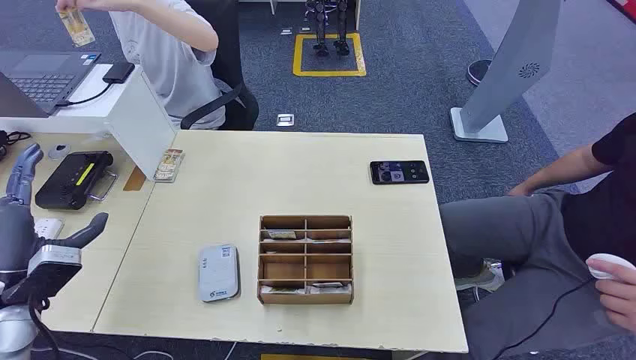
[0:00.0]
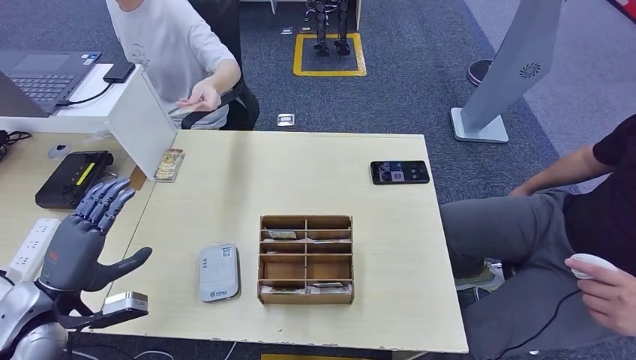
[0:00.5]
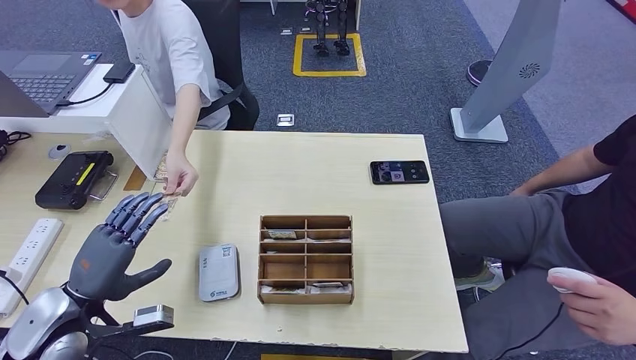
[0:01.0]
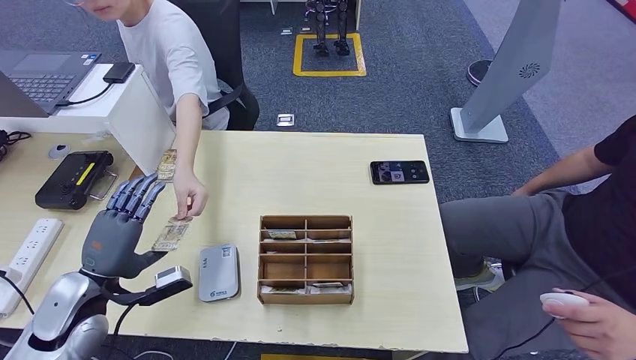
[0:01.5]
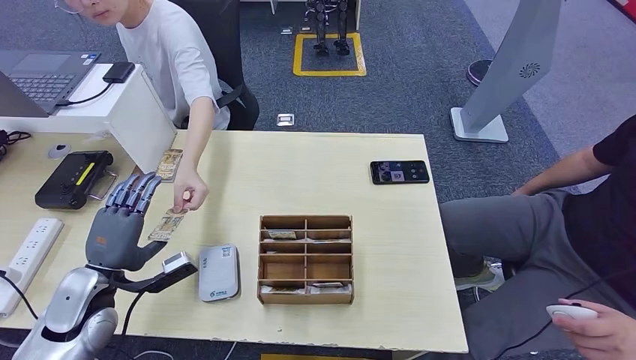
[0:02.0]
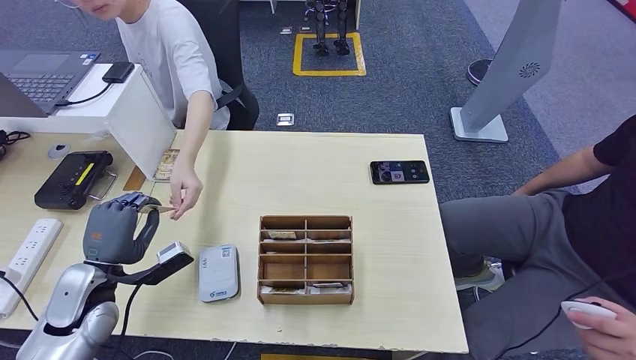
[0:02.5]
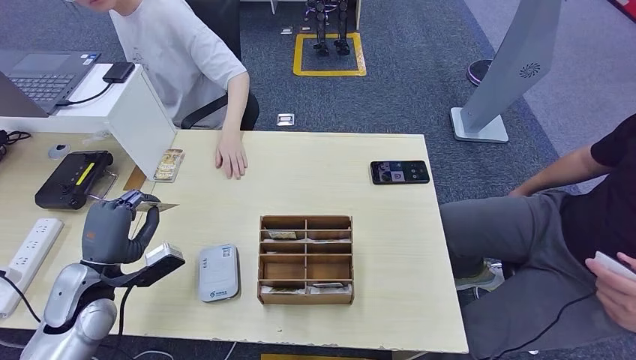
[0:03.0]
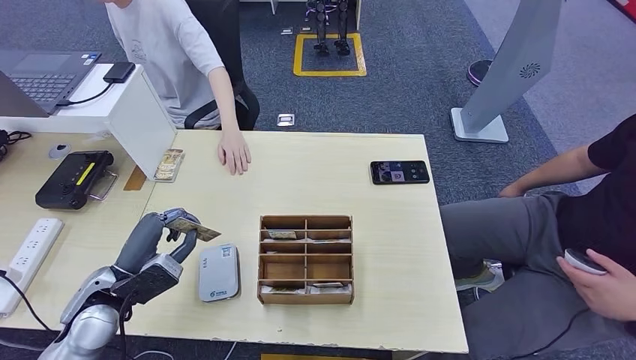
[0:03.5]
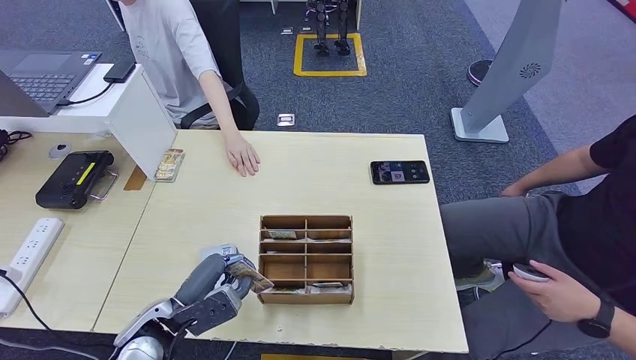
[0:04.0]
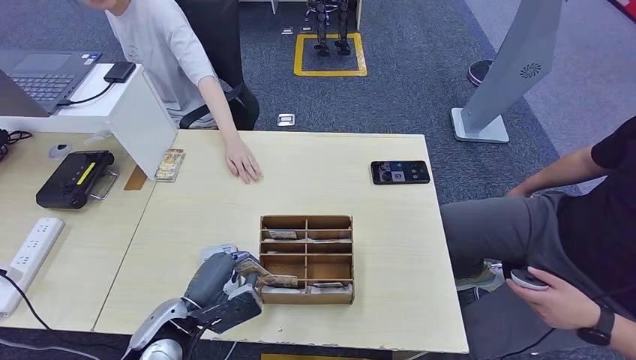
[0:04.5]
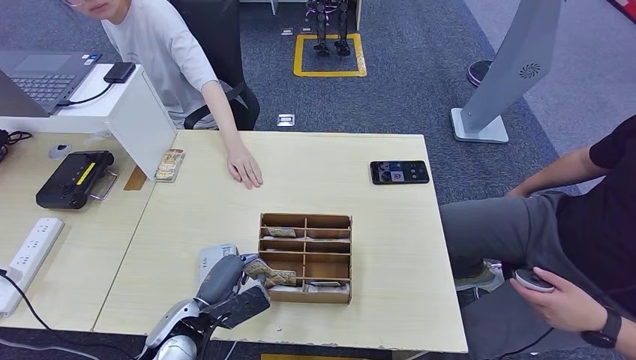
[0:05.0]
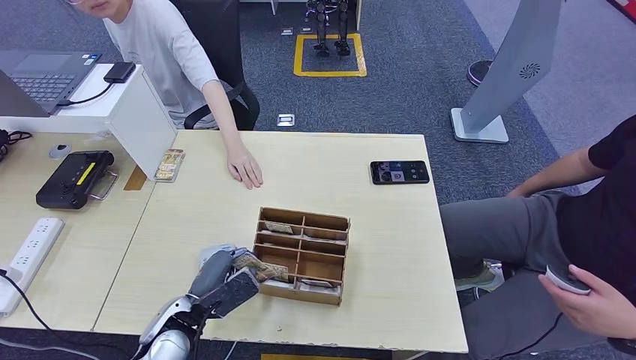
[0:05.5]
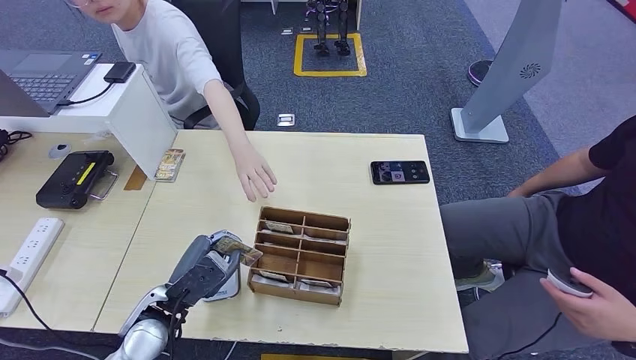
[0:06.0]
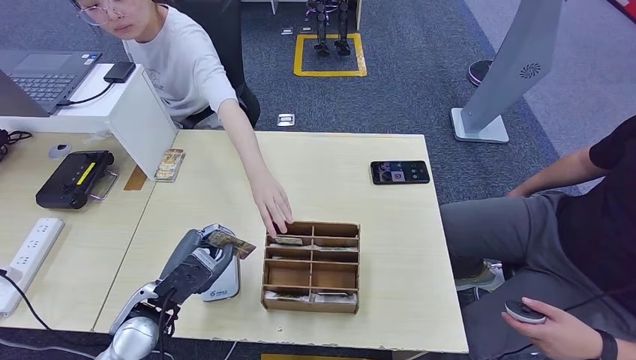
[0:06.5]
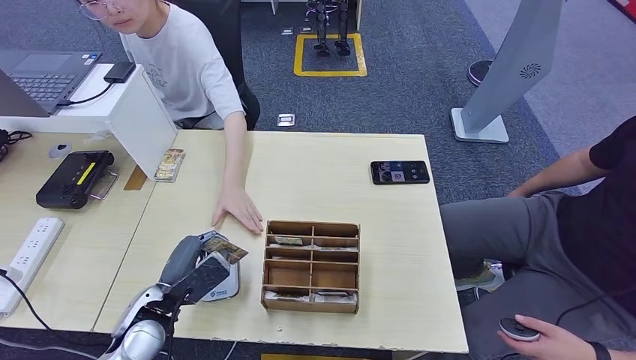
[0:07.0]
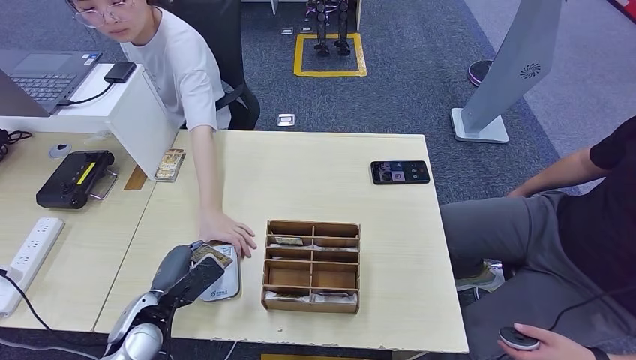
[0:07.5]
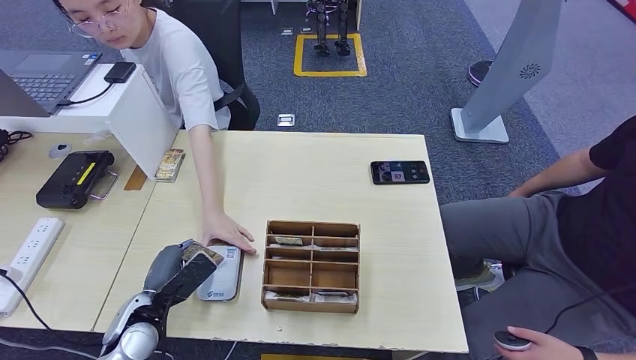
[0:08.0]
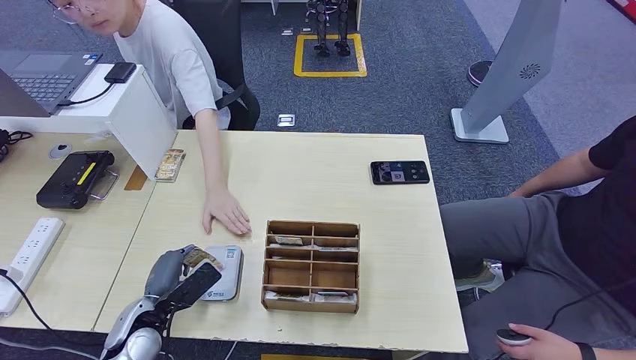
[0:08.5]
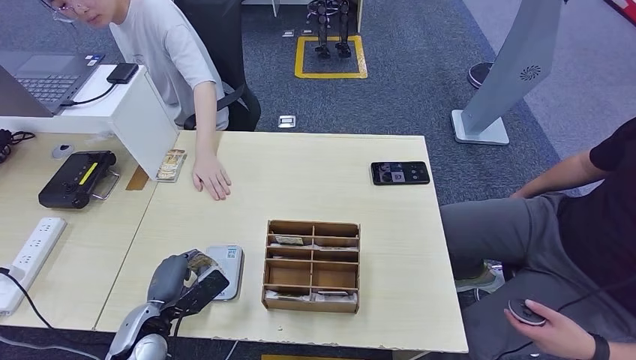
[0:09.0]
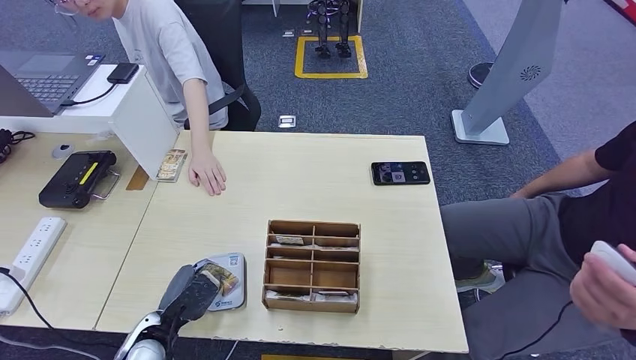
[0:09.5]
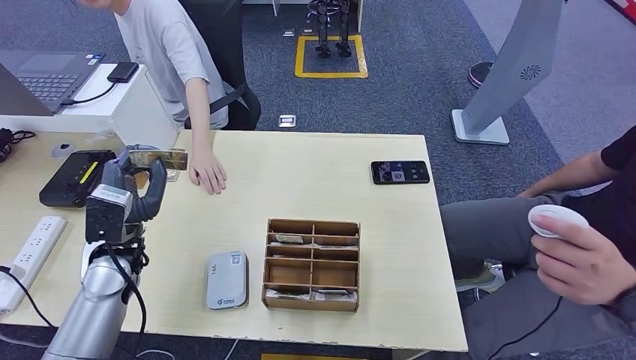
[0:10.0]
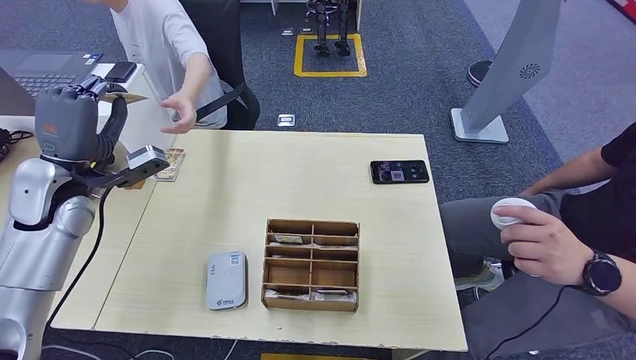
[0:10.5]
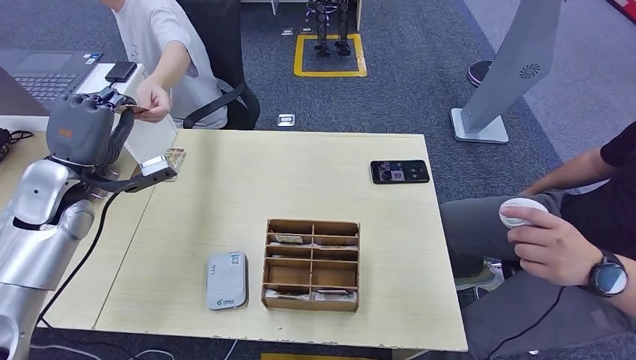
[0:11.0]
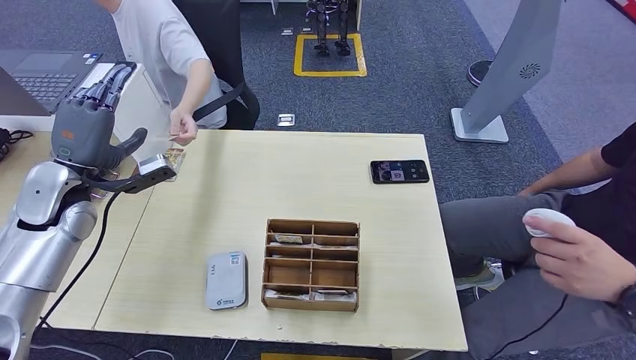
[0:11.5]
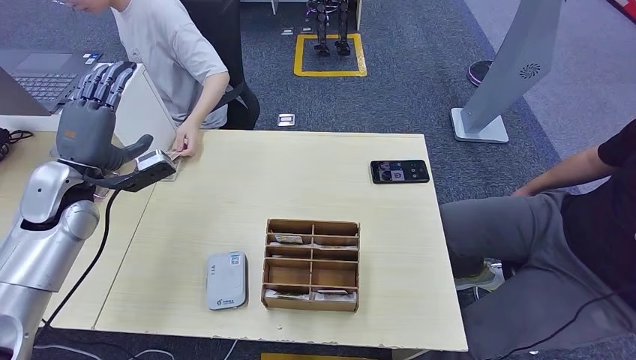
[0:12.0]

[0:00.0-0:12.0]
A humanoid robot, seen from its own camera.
Step, 0:00.0 to 0:03.0: Take the ID card from the person's hand.
Step, 0:03.5 to 0:09.0: Place the ID card on the card reader.
Step, 0:09.5 to 0:11.0: Hand the ID card to the person.
0:02.0 to 0:04.0: The left hand shifts approximately 10 cm to the right.
0:04.0 to 0:06.0: The hands stay close to where they were, moving slightly.
0:06.0 to 0:08.0: The left hand heads to the left, covering about 5 cm.

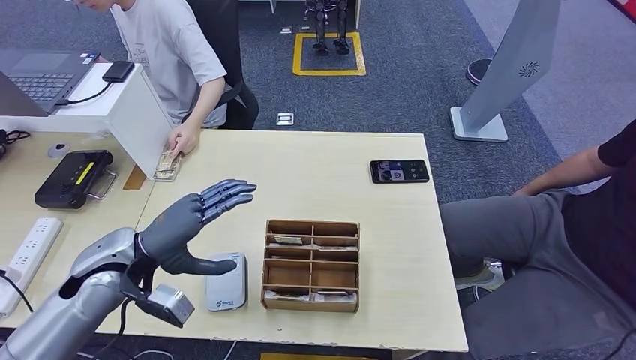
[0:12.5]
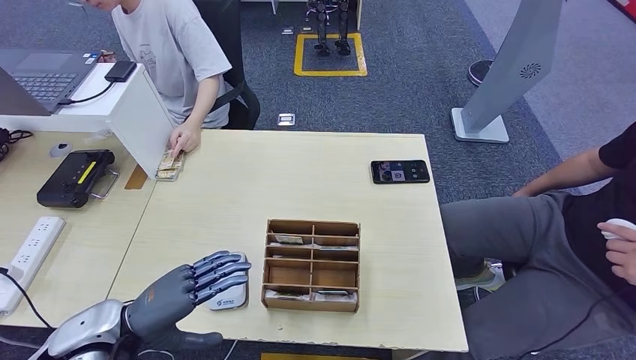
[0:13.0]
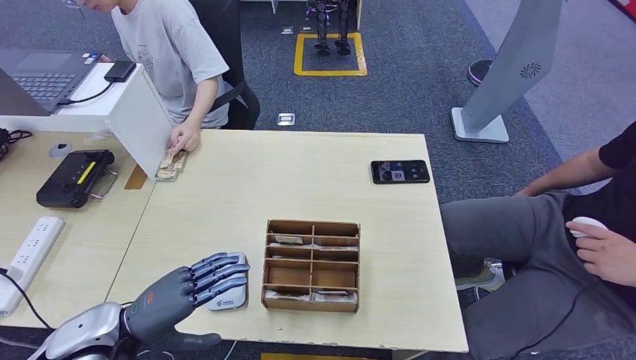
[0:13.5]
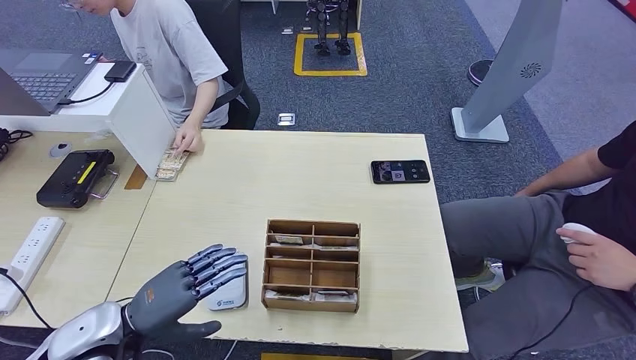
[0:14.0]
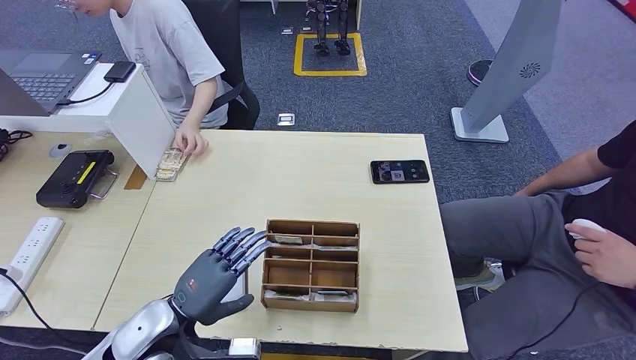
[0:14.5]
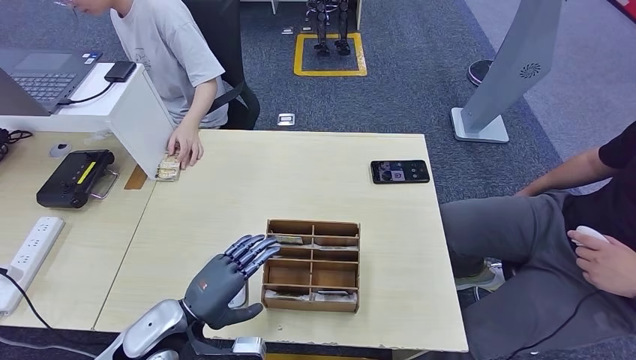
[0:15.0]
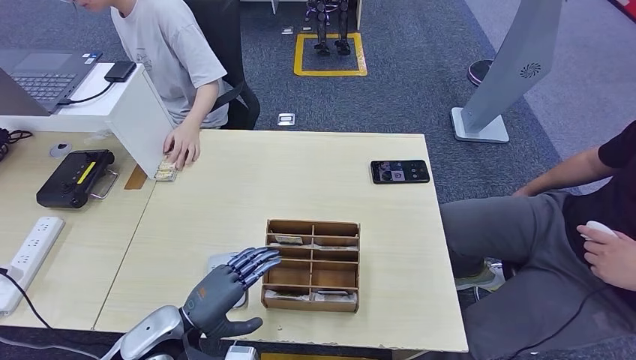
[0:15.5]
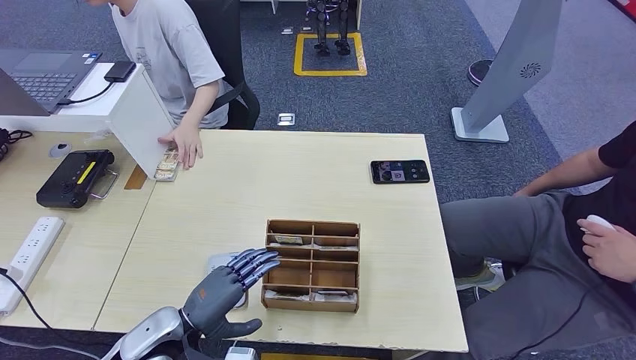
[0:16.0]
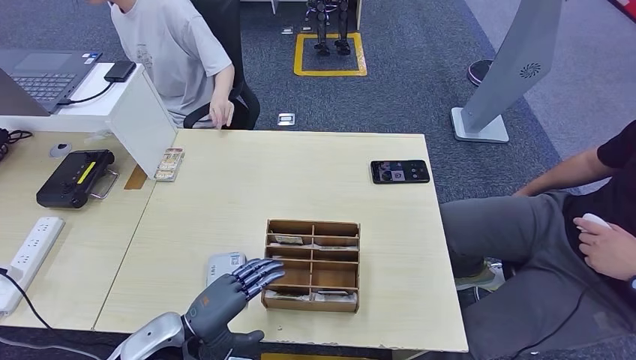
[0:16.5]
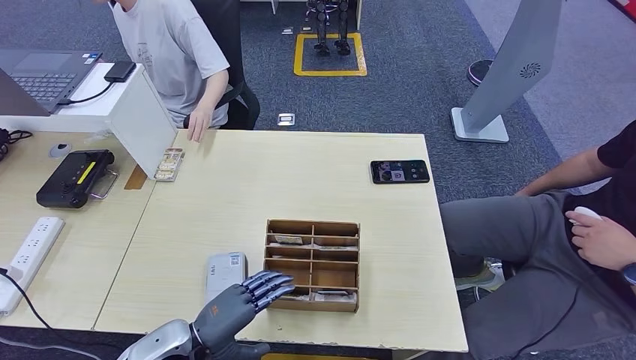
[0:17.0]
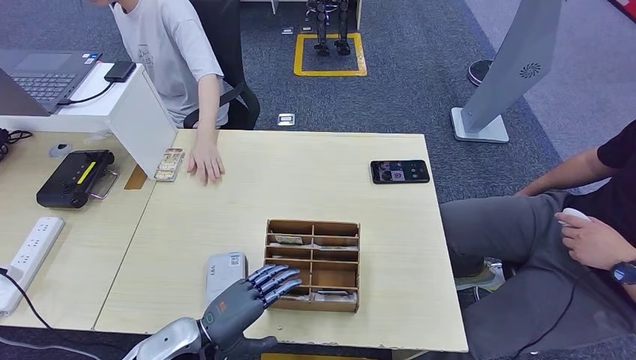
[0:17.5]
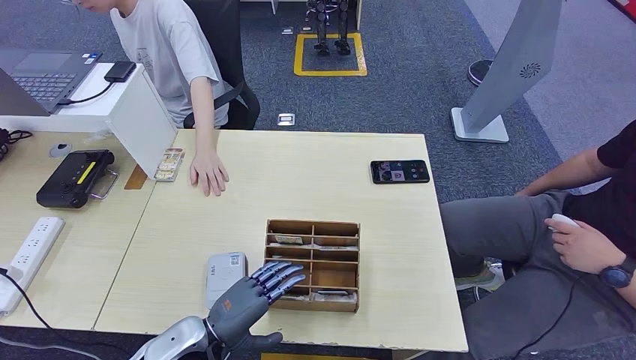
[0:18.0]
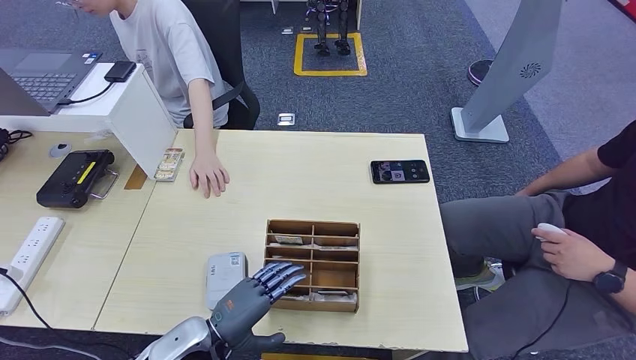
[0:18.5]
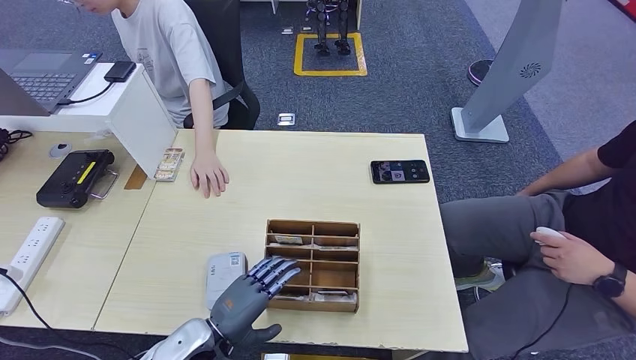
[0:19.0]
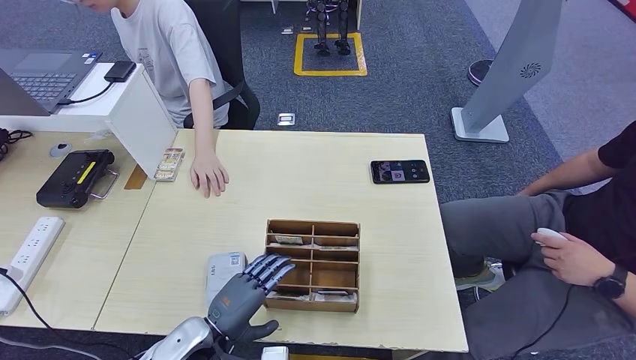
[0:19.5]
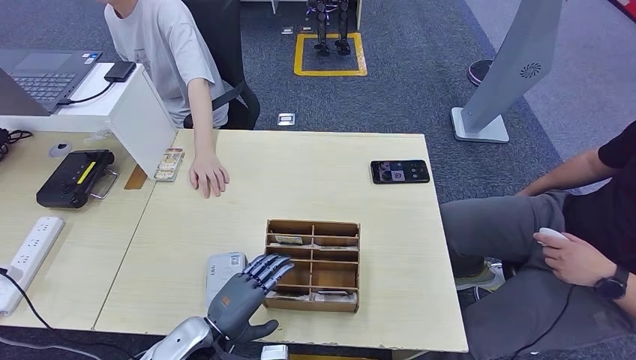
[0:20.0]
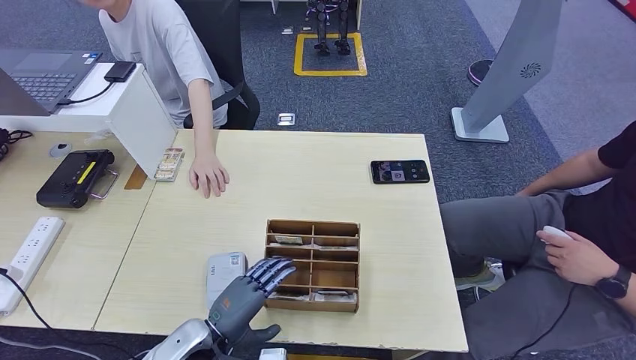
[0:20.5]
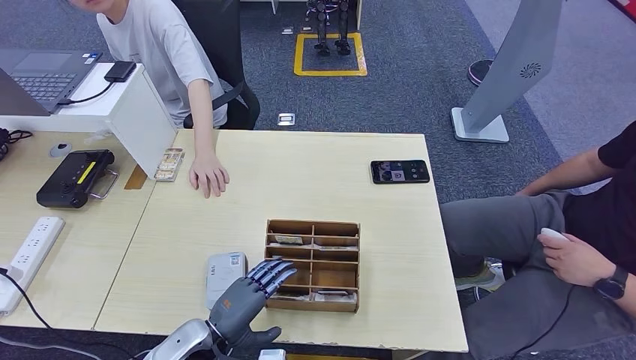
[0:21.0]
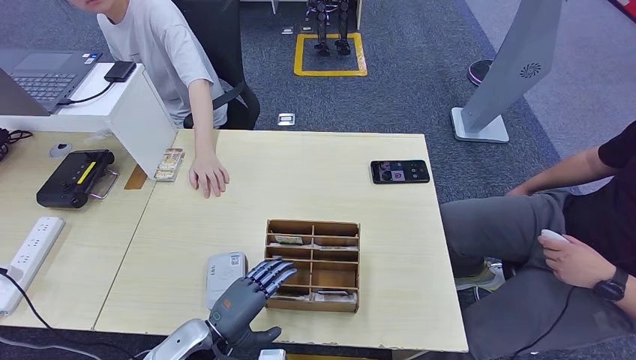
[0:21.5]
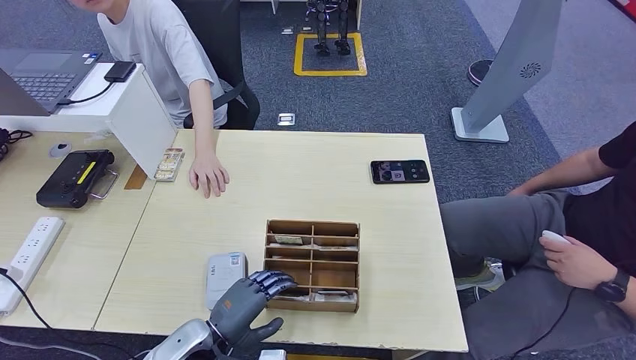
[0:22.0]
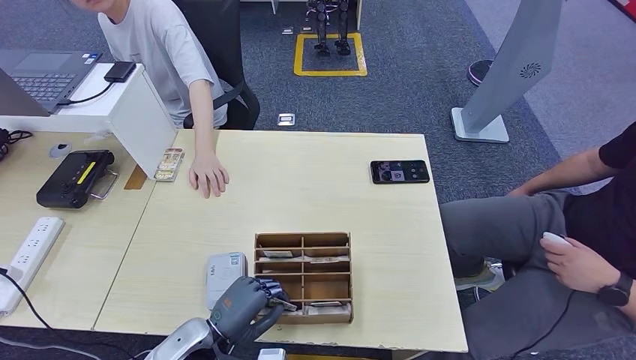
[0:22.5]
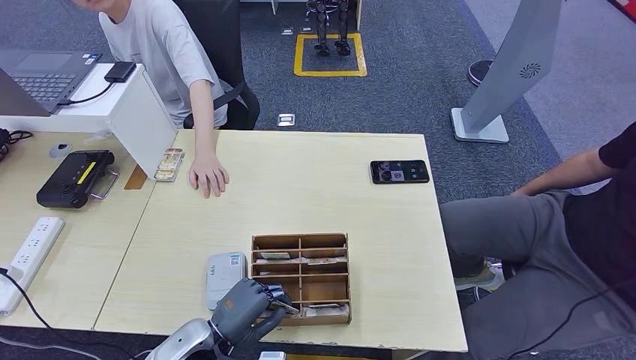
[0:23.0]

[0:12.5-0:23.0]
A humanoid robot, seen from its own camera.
0:12.5 to 0:14.5: The left hand is displaced downward and backward by about 10 cm.
0:16.5 to 0:23.0: The hands stay close to where they were, moving slightly.
